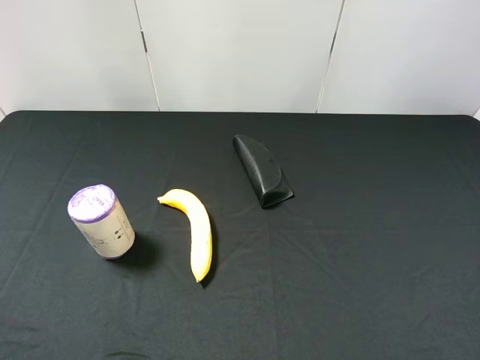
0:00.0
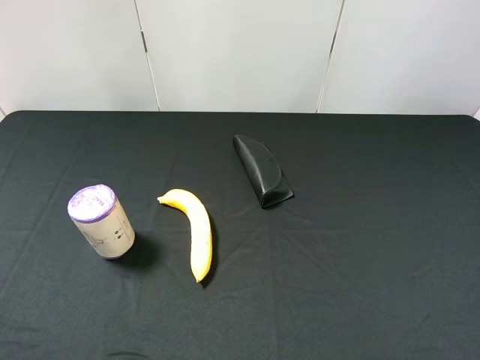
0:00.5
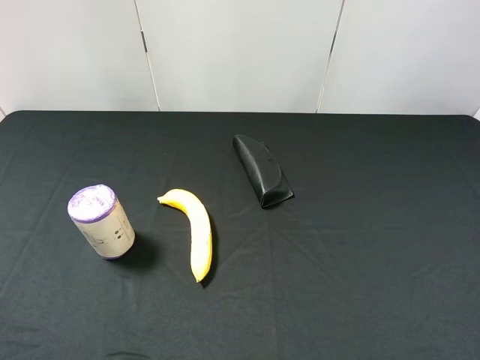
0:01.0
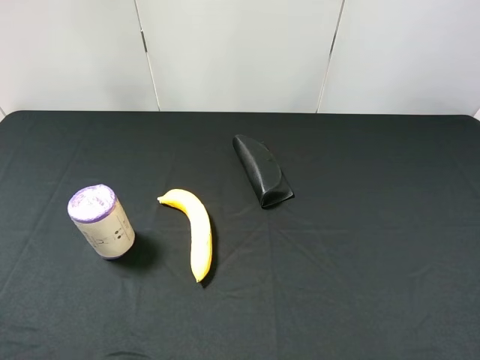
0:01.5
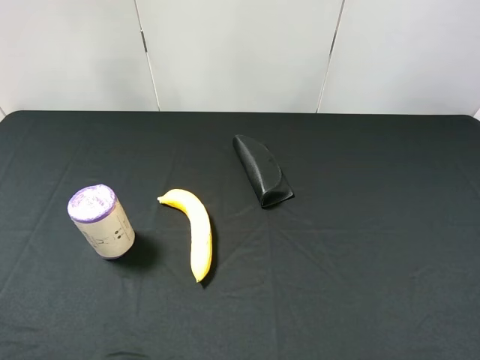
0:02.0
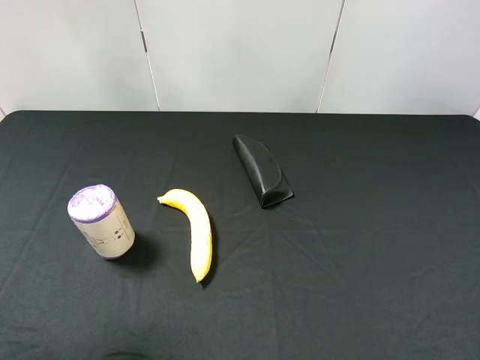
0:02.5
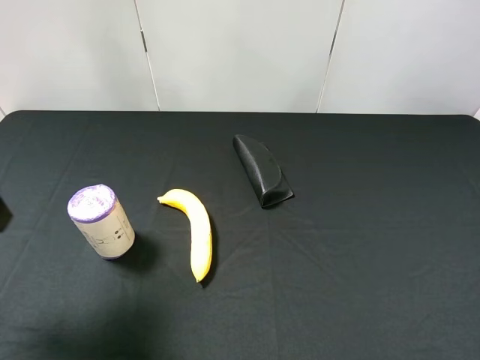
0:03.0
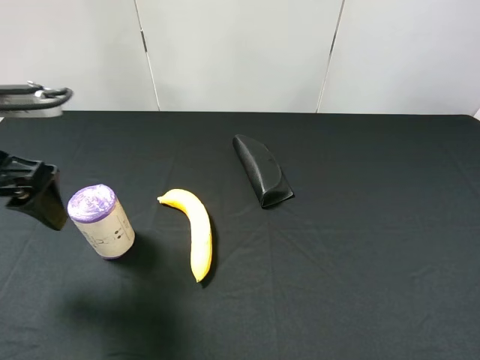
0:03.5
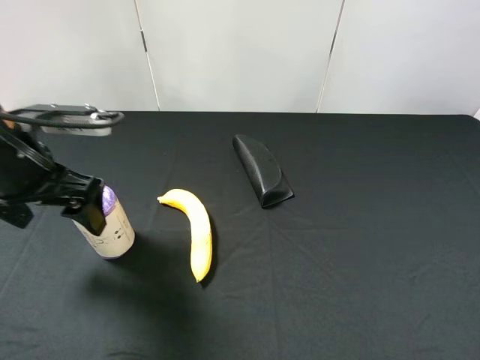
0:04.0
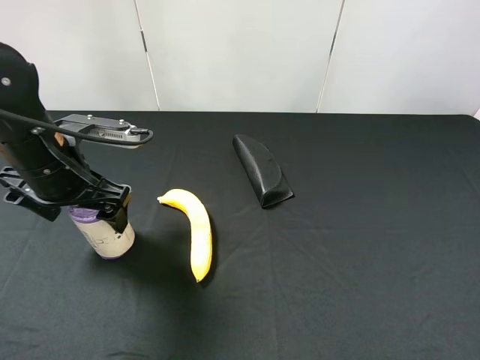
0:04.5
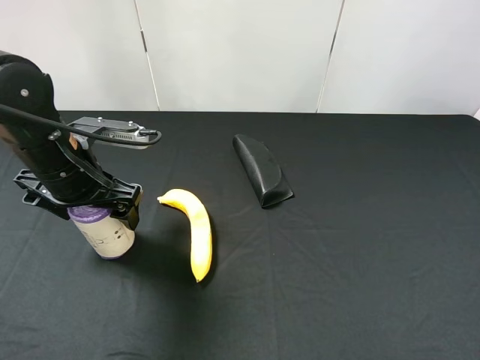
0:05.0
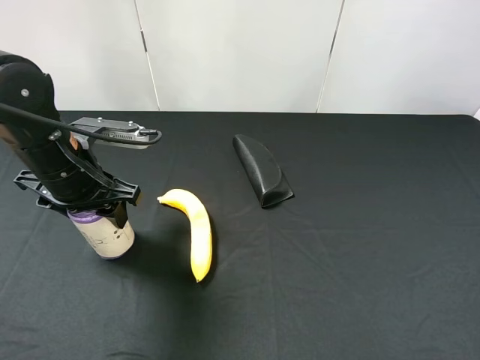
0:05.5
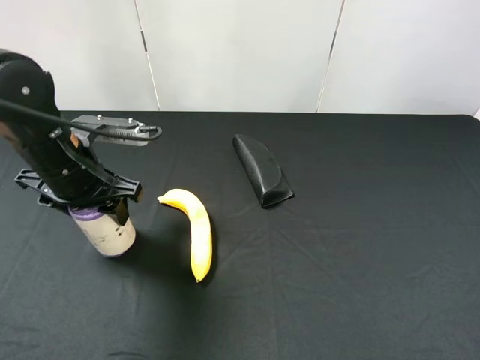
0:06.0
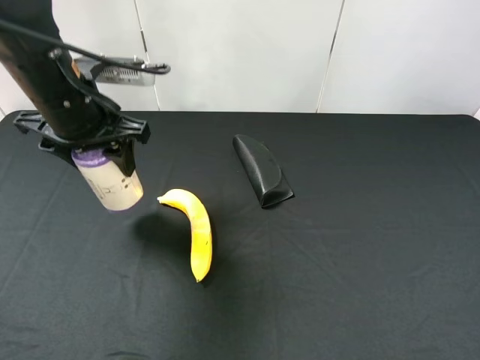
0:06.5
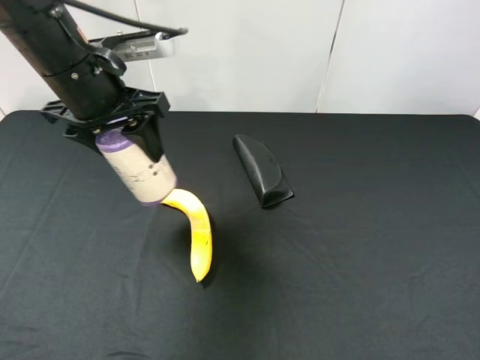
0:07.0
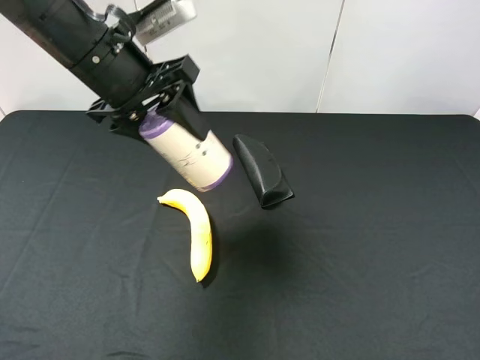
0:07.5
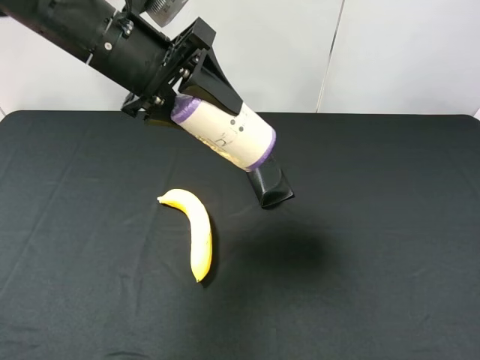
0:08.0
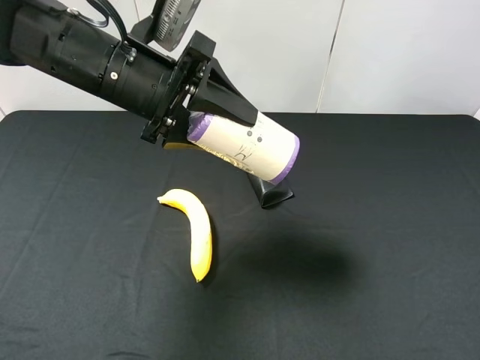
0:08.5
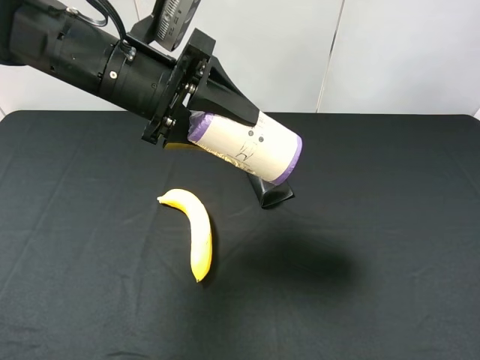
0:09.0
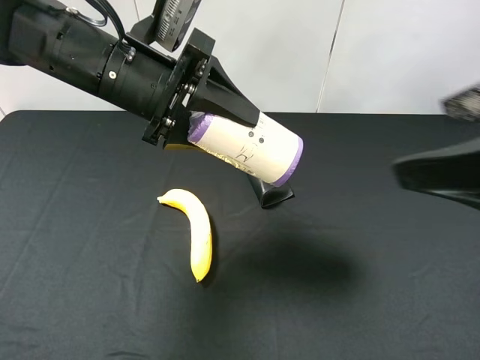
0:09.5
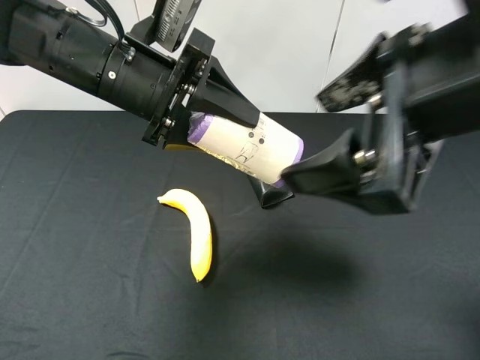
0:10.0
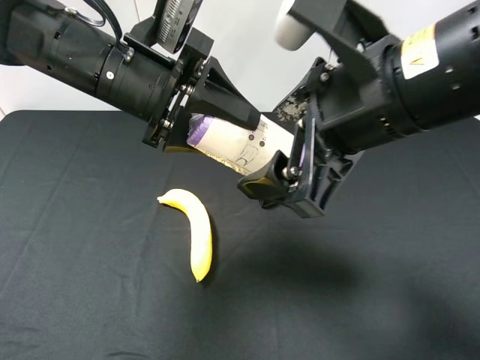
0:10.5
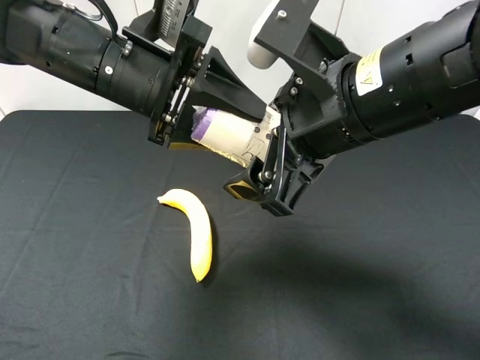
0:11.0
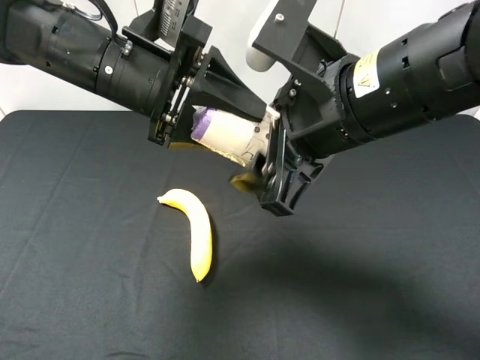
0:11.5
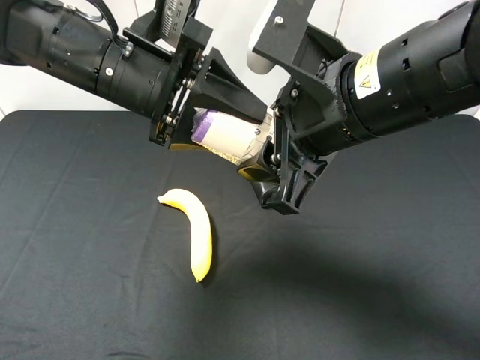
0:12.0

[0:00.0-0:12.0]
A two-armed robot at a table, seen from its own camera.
Task of the whole recording: use the left gripper to pick up the item and transfer it from the left gripper to the right gripper.
0:02.0 to 0:04.0: The left gripper heads forward, downward and to the right, covering roughly 25 cm.
0:04.0 to 0:06.0: The left gripper shifts by about 5 cm, and closes its fingers.
0:06.0 to 0:08.0: The left gripper travels upward and to the right by about 10 cm.
0:08.0 to 0:10.0: The right gripper shifts about 20 cm to the left and forward.
0:10.0 to 0:12.0: The right gripper changes place by about 10 cm, and closes its fingers.

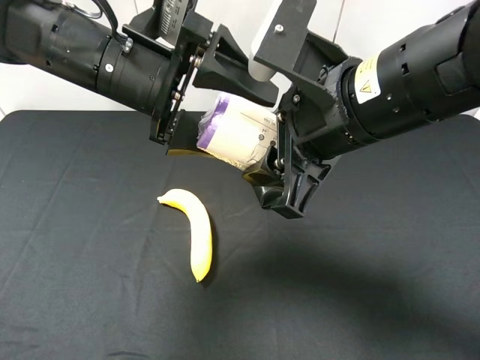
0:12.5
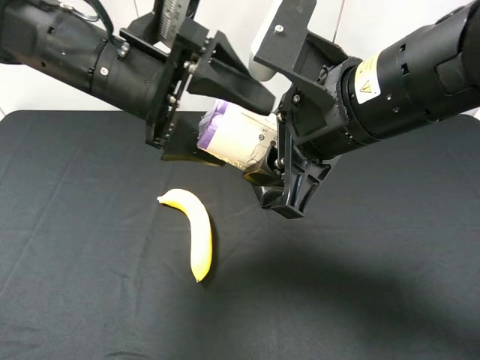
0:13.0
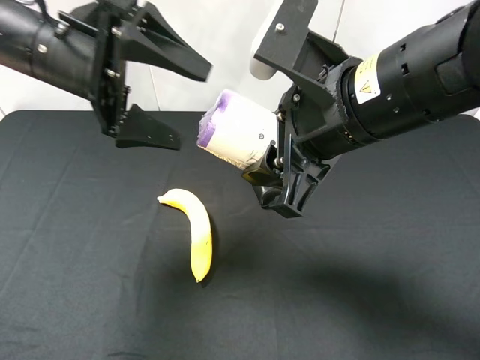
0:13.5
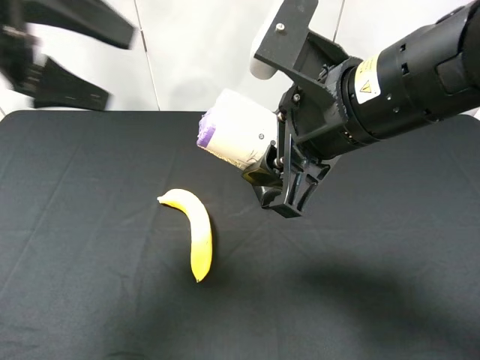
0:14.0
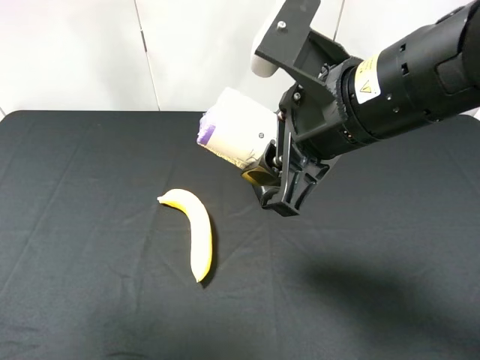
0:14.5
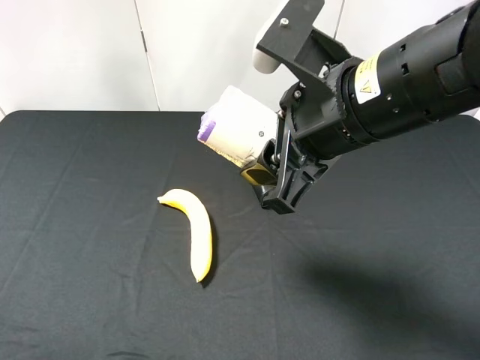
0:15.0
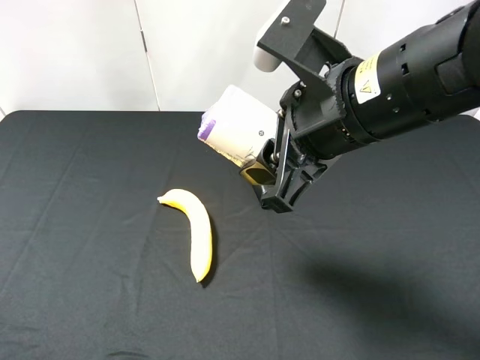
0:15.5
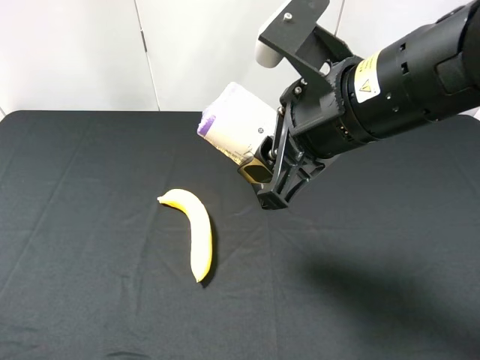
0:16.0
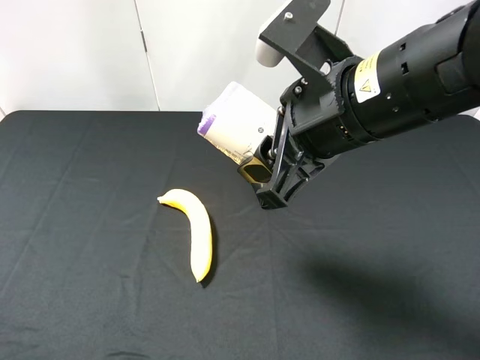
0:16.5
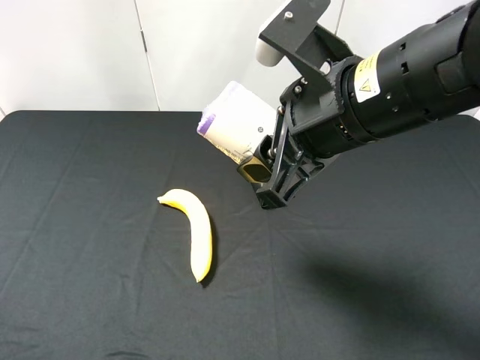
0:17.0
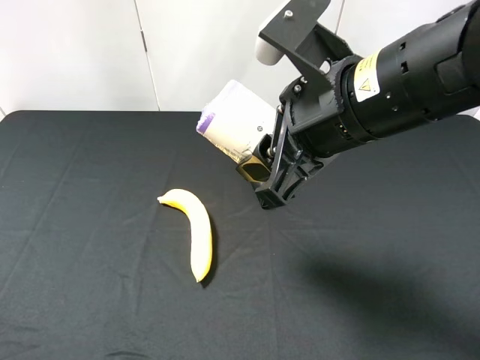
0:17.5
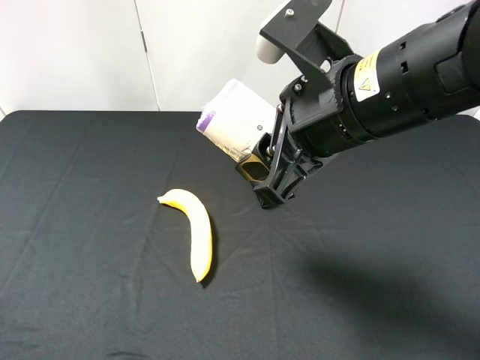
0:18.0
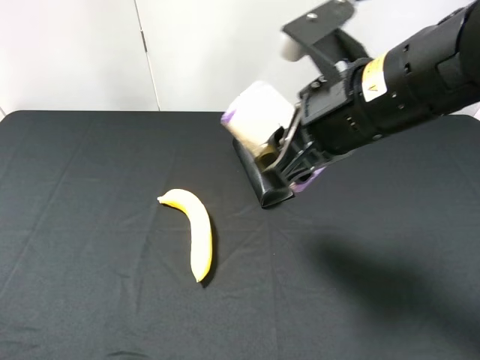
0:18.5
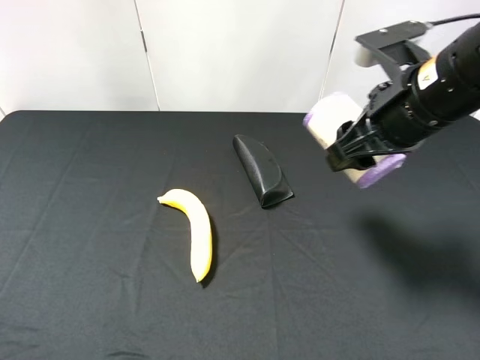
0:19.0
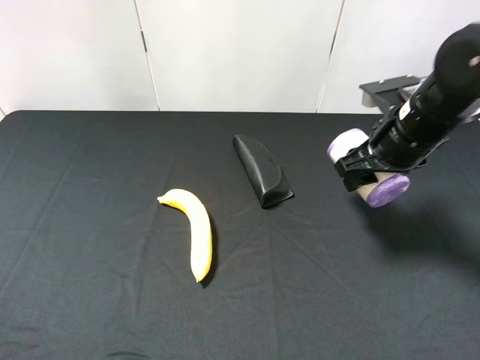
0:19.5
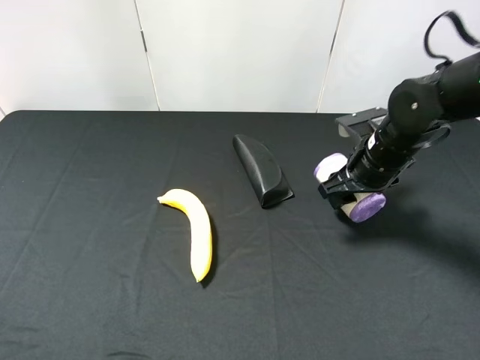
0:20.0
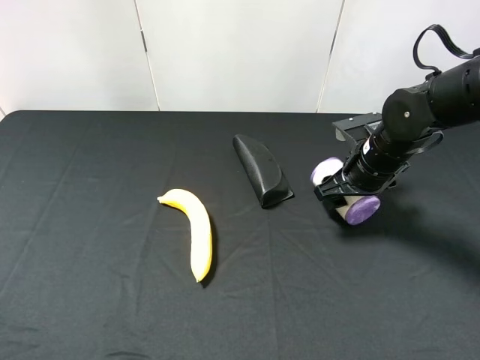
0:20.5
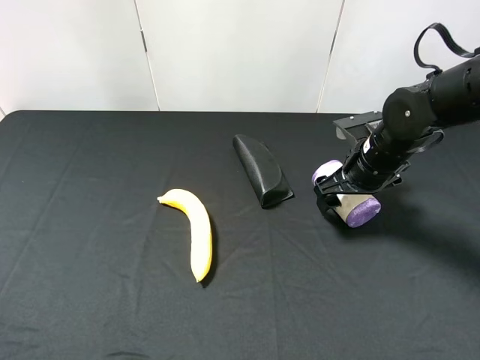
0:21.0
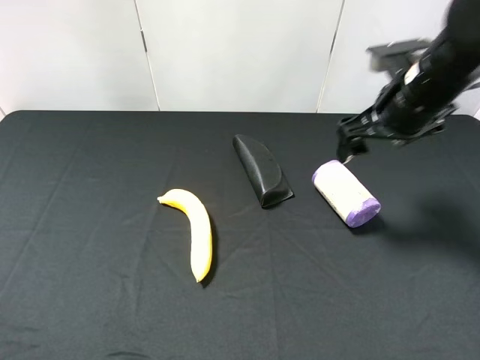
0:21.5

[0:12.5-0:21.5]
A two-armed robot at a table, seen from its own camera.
Task of the whole recording: use the left gripper to pick up the item and transfer it from the left gripper to the right gripper.
0:12.5 to 0:14.5: The left gripper moves to the left, upward and backward, some 25 cm.
0:14.5 to 0:17.0: The left gripper moves downward and backward, about 15 cm.
0:17.0 to 0:19.5: The right gripper shifts approximately 20 cm to the right, forward and downward.
0:19.5 to 0:21.5: The right gripper moves upward, approximately 5 cm, and opens its fingers.

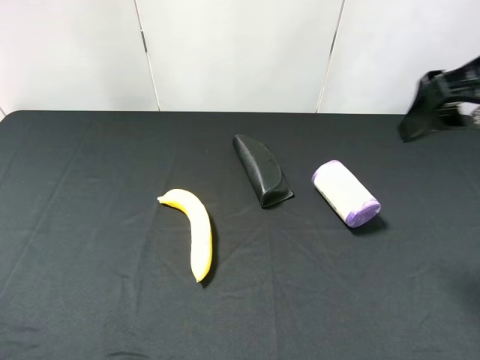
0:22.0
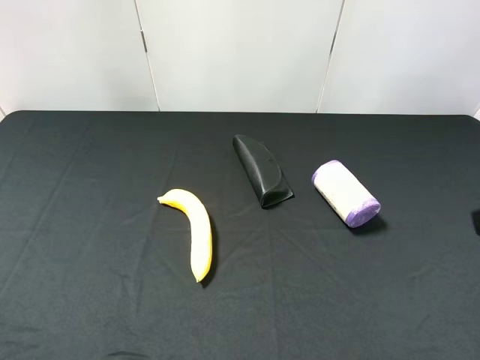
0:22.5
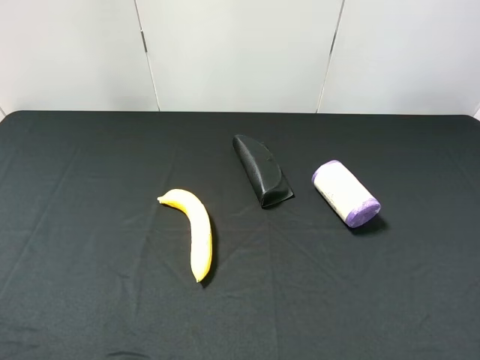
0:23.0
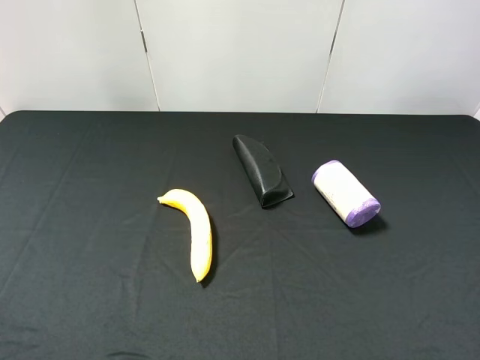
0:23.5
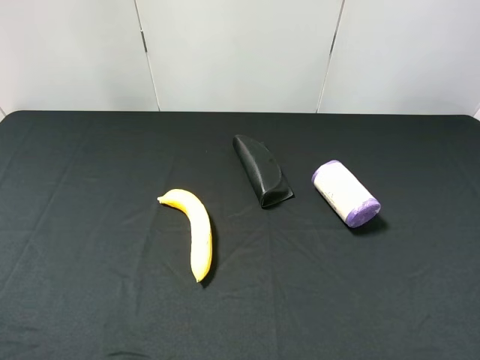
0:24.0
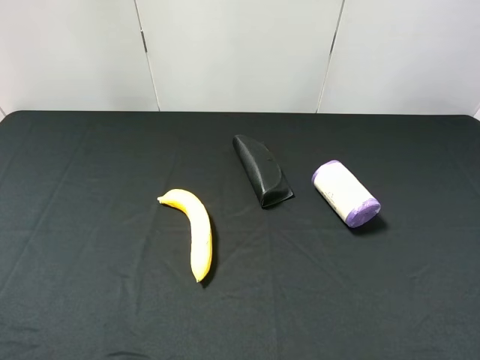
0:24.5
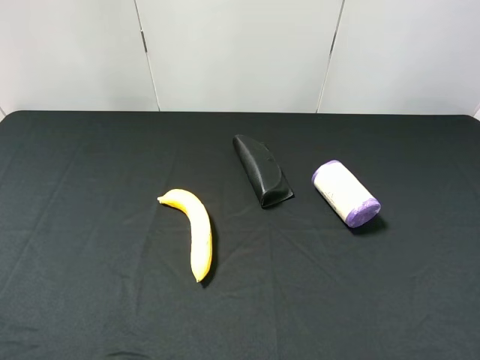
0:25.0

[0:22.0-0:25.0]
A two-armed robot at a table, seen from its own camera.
Task of the whole recording: use the left gripper to pick up the item and transfer it from the left gripper to the right gripper.
0:22.0 to 0:23.5: The right gripper shifts roughly 20 cm backward.

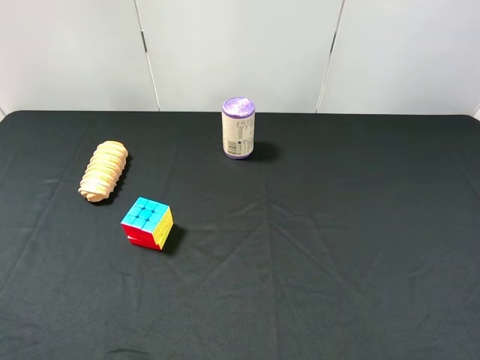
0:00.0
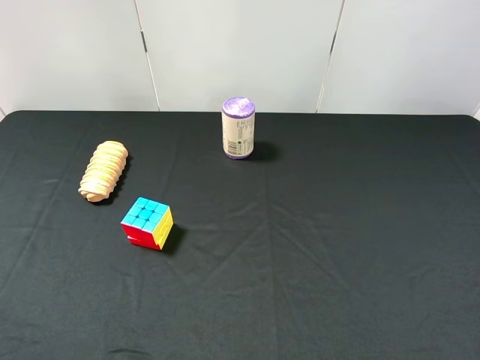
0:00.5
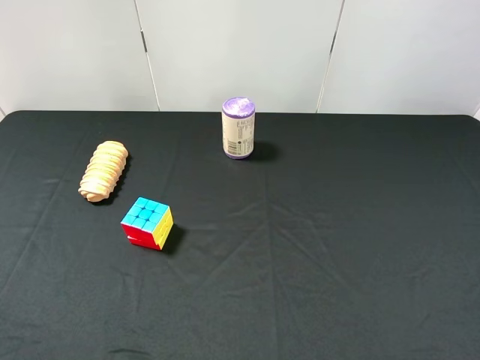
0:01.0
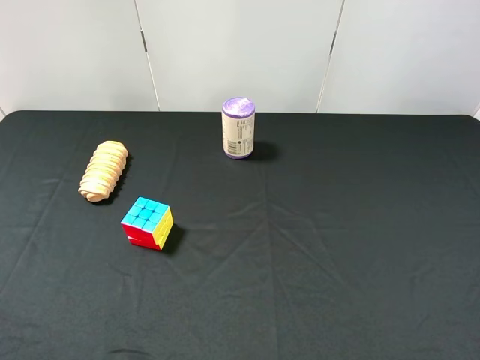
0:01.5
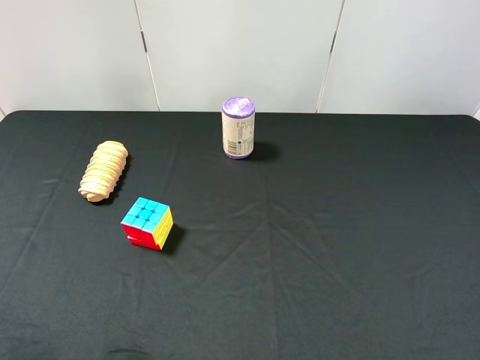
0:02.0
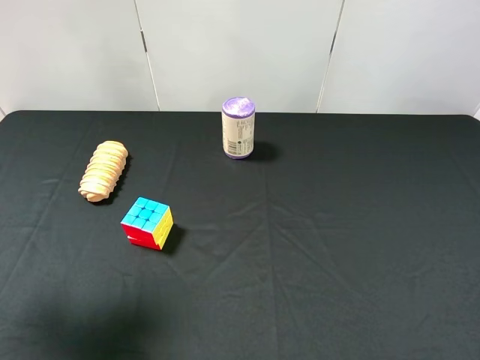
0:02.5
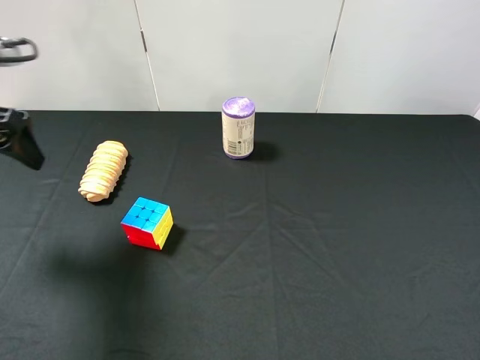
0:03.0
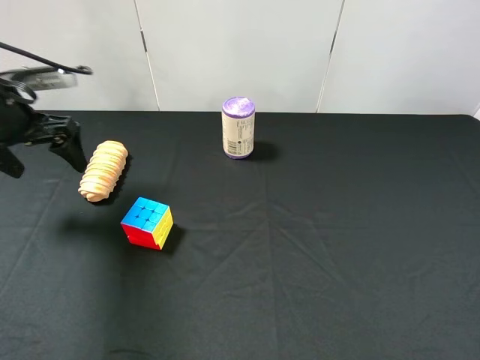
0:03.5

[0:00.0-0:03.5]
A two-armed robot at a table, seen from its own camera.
Task of the whole recording: use the left gripper to pick up the item and transfer it from the left gripper to the right gripper.
0:02.0 to 0:03.5: The left gripper travels forward by some 25 cm.
